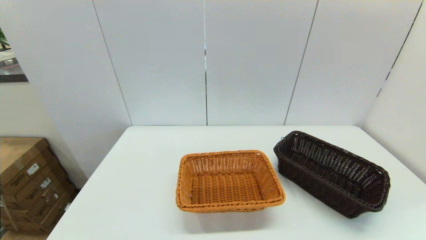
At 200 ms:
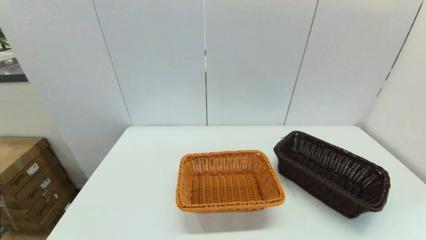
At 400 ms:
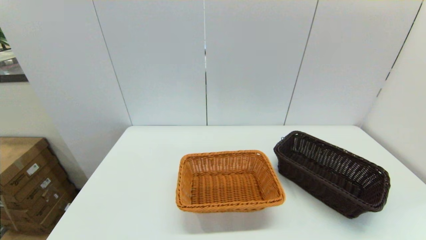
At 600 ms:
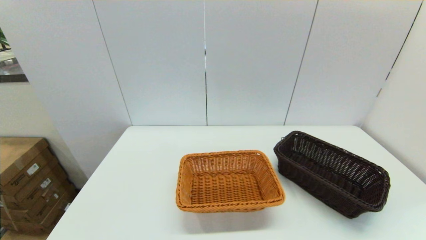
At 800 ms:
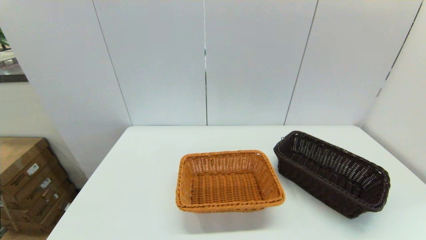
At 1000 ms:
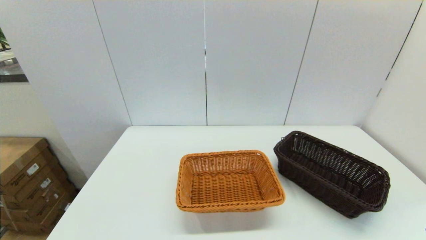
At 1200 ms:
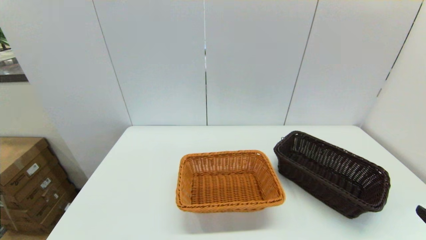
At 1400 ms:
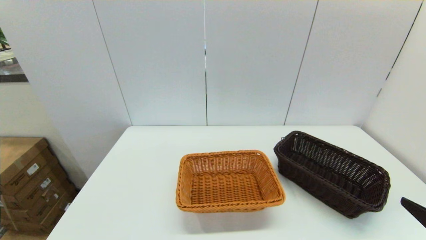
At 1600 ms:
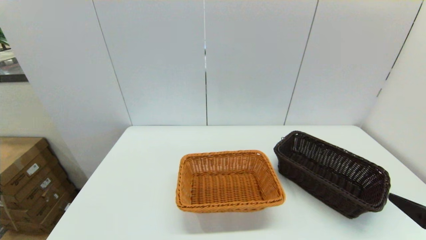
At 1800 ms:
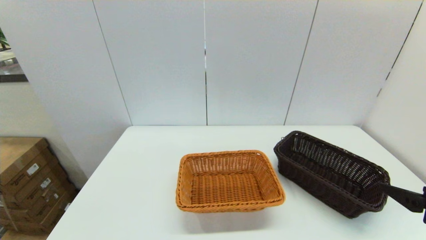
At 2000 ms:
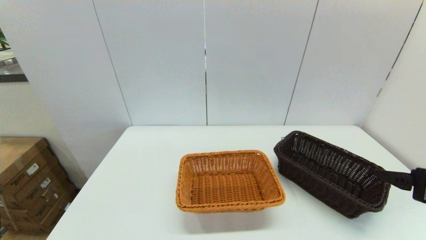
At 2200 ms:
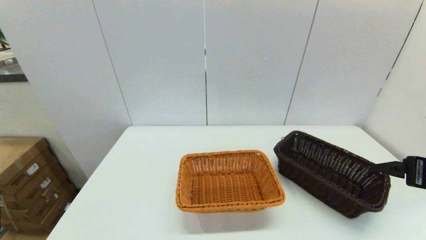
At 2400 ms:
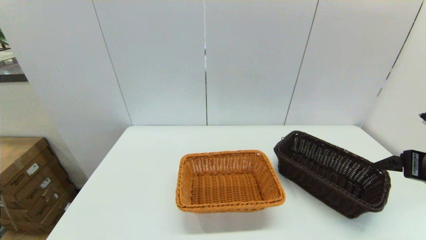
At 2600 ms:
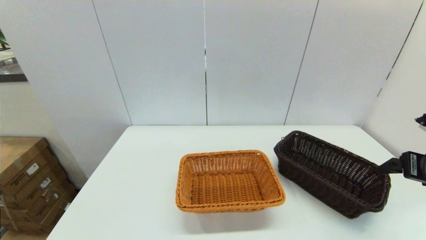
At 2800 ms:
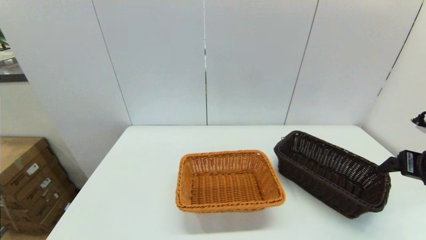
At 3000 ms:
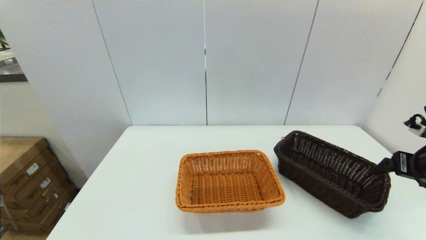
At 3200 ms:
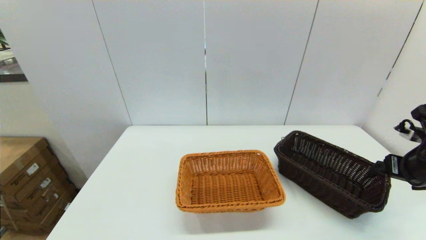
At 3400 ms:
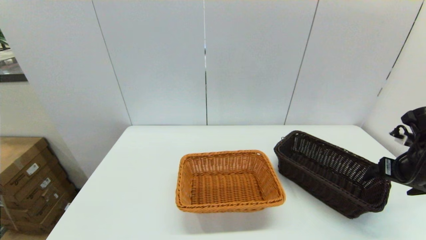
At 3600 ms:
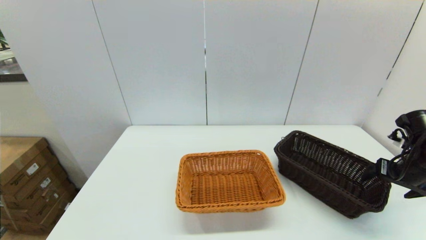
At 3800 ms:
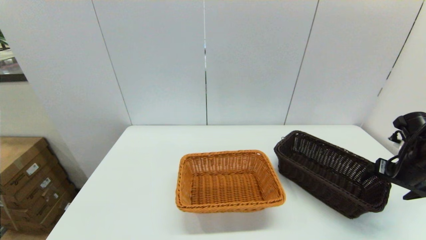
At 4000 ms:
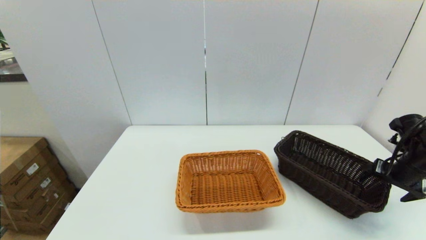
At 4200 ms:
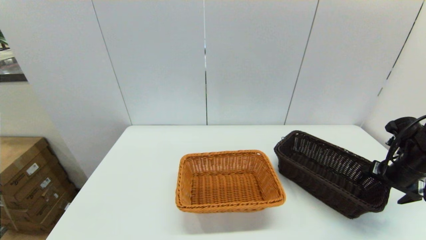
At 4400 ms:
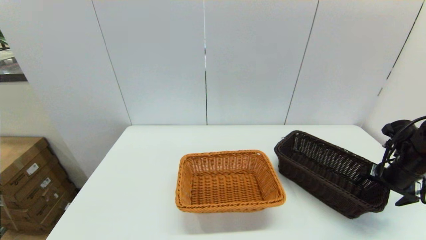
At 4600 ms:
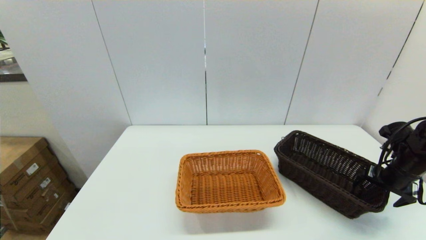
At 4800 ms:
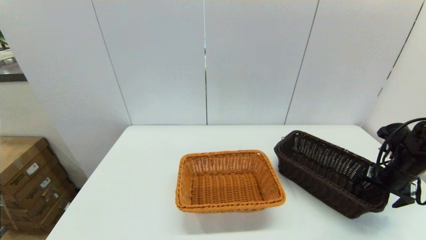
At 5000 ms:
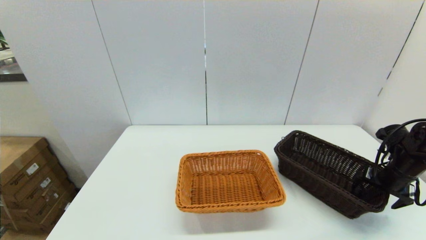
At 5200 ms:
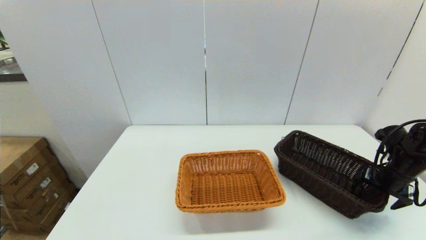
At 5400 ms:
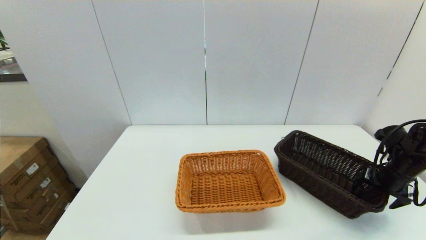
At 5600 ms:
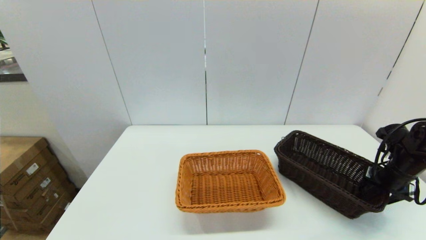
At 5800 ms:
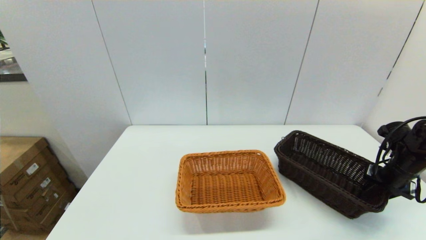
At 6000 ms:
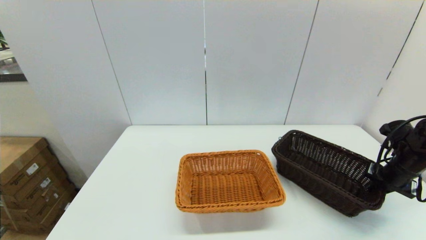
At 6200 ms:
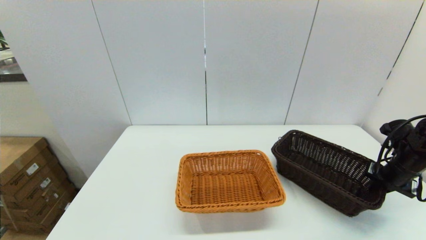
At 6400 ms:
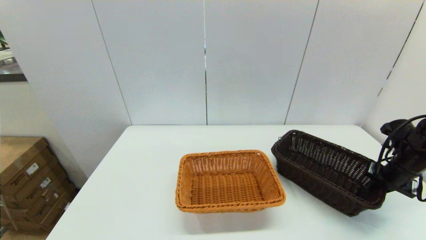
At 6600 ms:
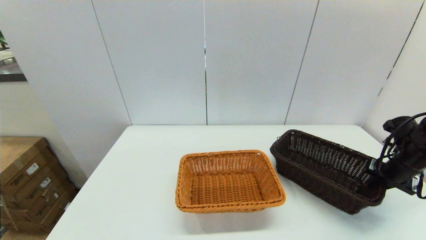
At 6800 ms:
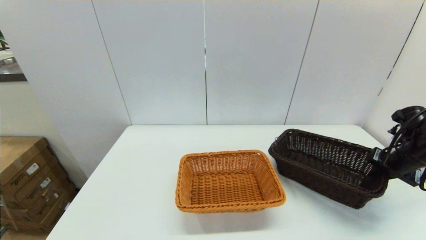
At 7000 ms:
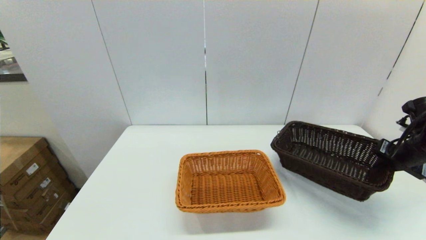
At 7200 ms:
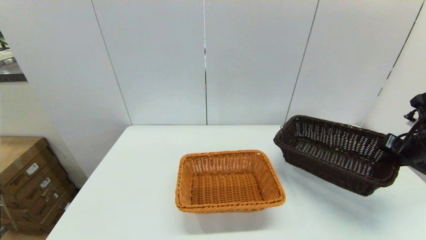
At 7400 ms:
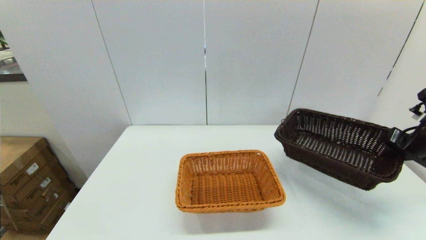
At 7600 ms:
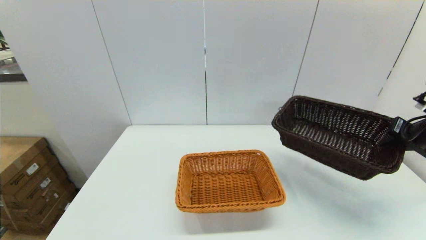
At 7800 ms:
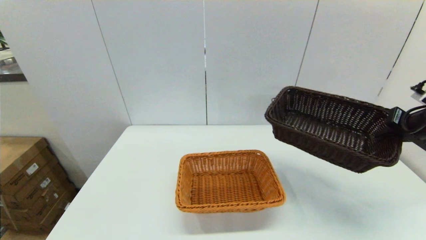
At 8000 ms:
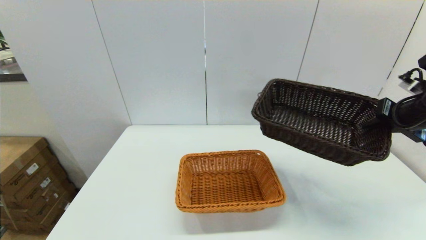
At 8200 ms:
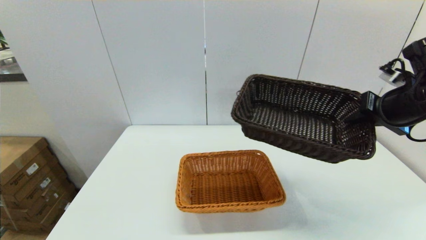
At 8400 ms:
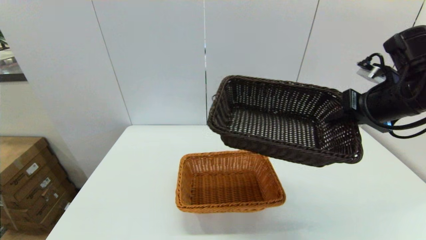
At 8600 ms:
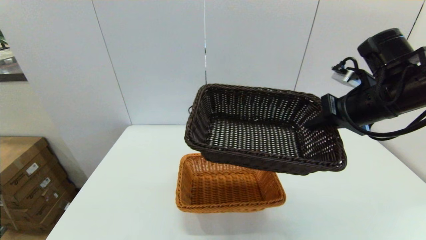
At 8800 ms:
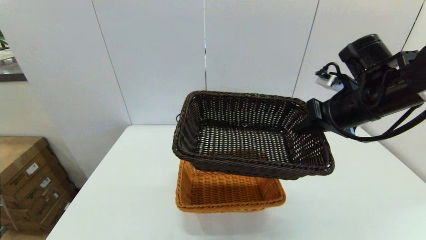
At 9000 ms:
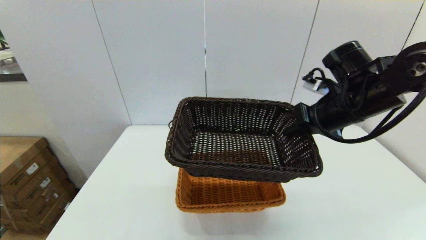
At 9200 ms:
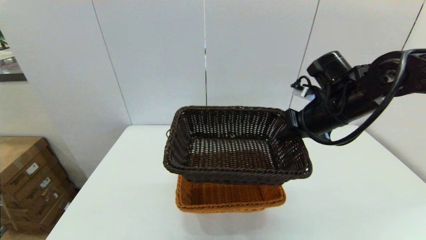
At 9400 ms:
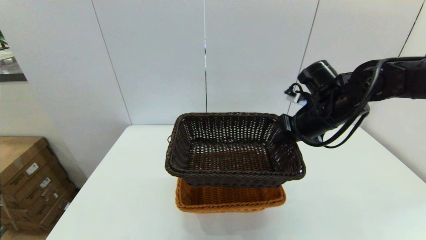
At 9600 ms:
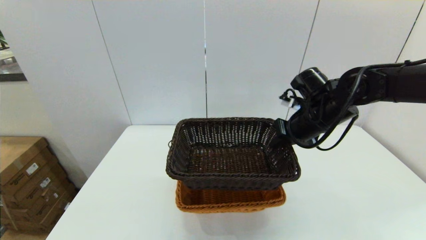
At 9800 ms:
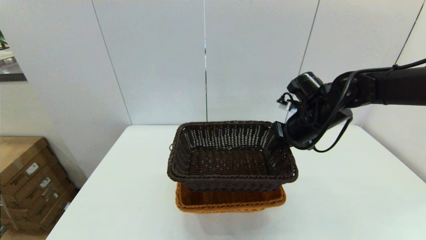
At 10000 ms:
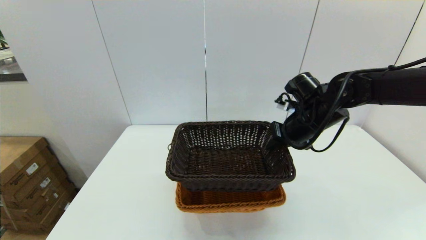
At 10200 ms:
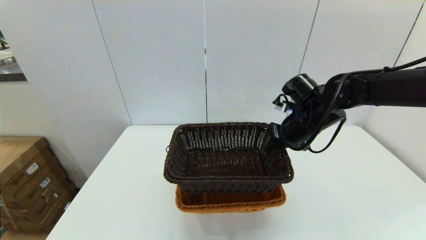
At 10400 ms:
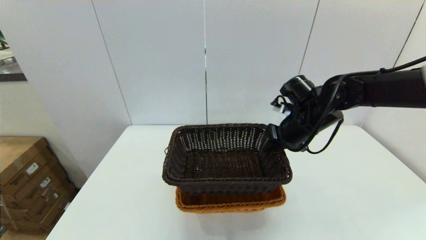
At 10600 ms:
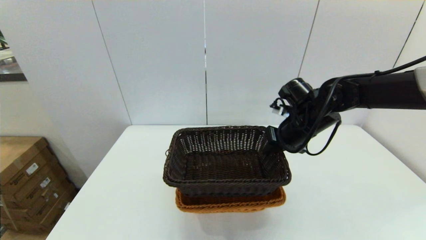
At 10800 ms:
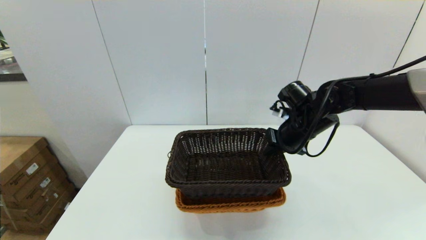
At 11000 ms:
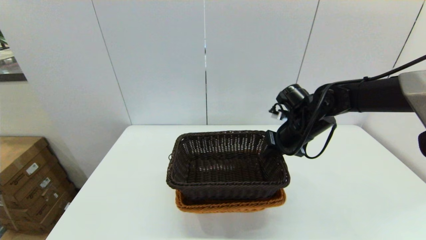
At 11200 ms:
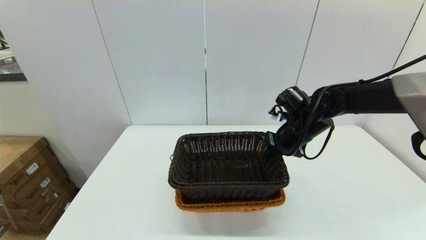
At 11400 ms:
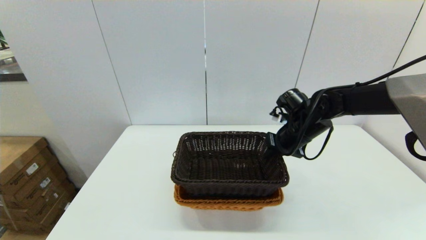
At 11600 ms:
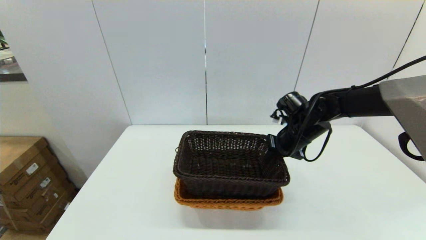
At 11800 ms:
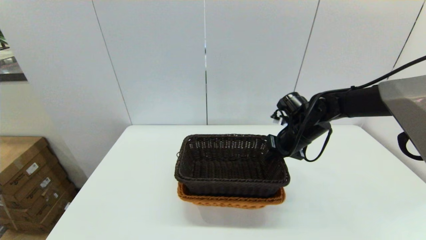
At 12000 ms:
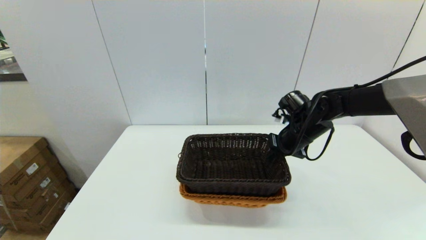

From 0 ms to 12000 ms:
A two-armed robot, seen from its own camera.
Task of the whole recording: stack a basket on top of another basket.
Step, from 0 ms to 6800 ms: Grasp the dark basket with the right gripper.
From 0 ms to 1600 ms: The right gripper travels forward and upward by approximately 15 cm.
From 1600 ms to 3000 ms: The right gripper goes some 15 cm forward and to the right.
From 3000 ms to 4400 ms: The right gripper heads downward and forward, covering roughly 10 cm.
From 4400 ms to 6000 ms: The right gripper closes.
From 6000 ms to 7600 ms: The right gripper moves upward, roughly 10 cm.
From 7600 ms to 9000 ms: The right gripper goes approximately 20 cm to the left.
From 9000 ms to 10400 ms: The right gripper shifts approximately 10 cm downward and forward.
From 10400 ms to 12000 ms: The right gripper shifts by roughly 5 cm.

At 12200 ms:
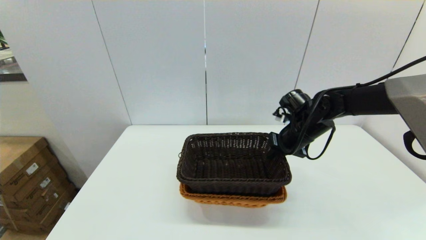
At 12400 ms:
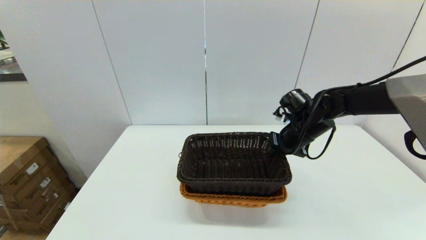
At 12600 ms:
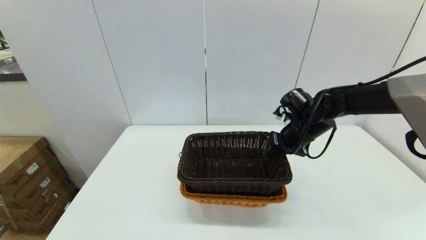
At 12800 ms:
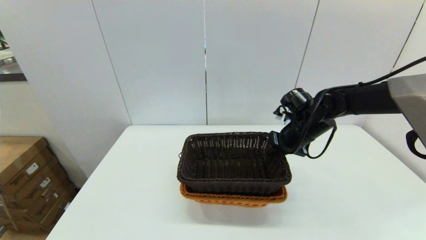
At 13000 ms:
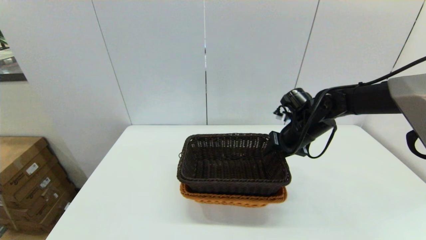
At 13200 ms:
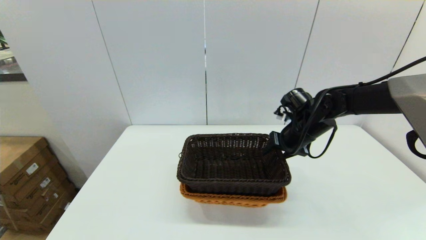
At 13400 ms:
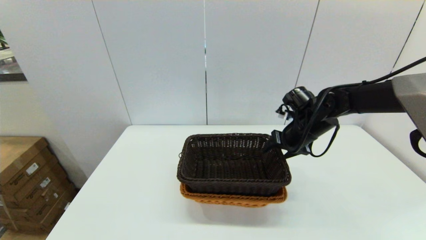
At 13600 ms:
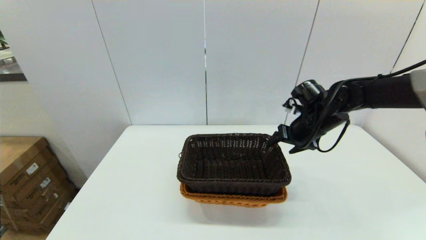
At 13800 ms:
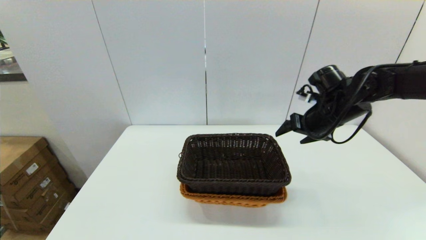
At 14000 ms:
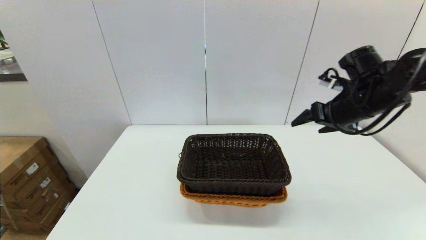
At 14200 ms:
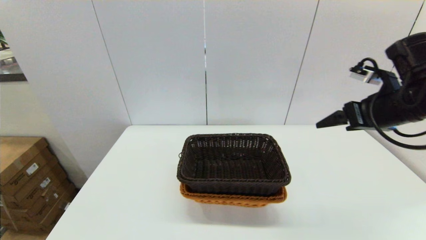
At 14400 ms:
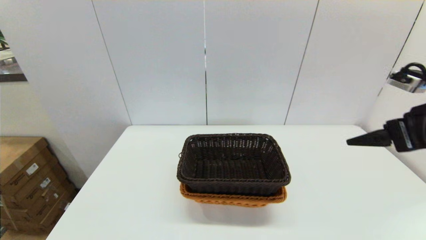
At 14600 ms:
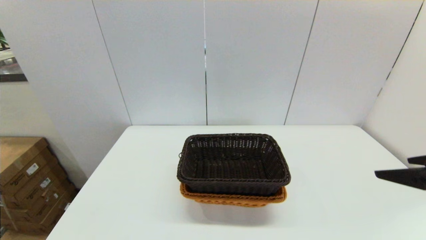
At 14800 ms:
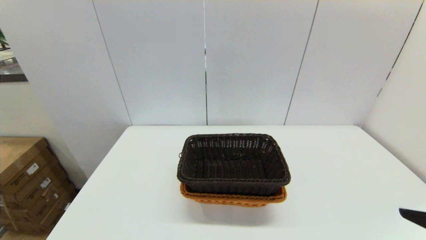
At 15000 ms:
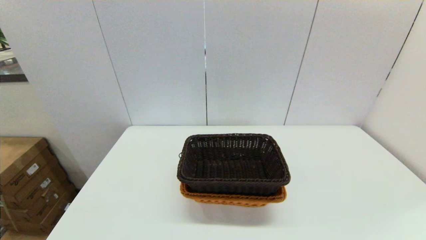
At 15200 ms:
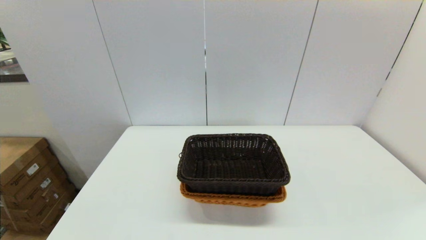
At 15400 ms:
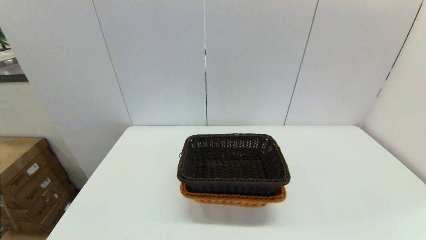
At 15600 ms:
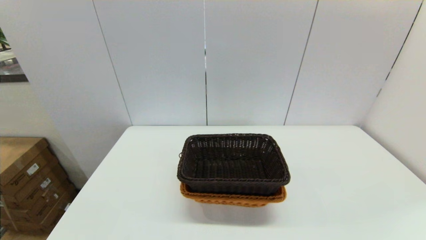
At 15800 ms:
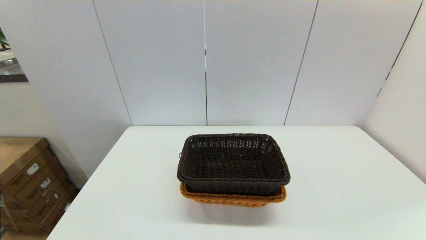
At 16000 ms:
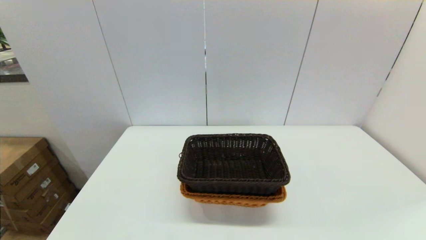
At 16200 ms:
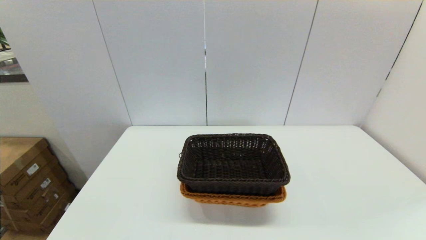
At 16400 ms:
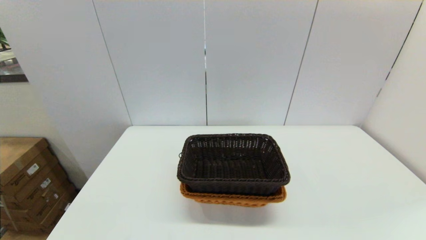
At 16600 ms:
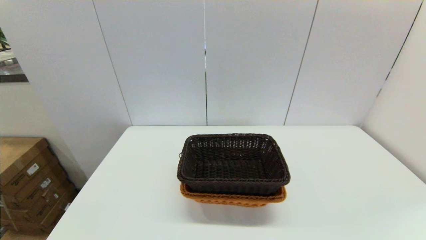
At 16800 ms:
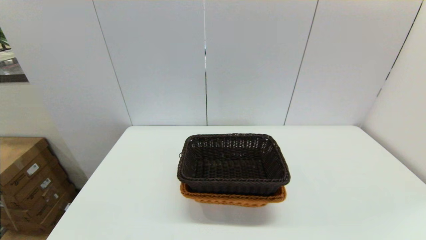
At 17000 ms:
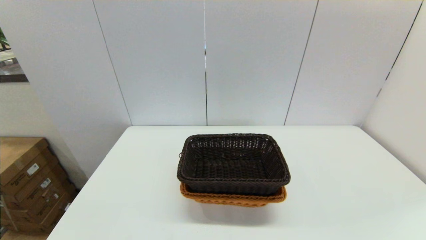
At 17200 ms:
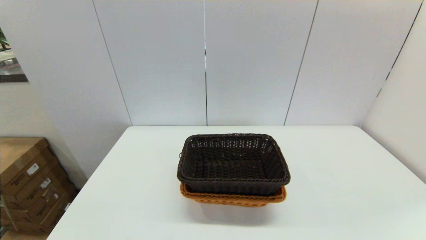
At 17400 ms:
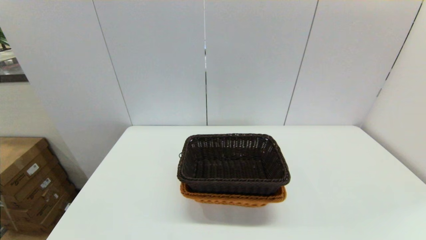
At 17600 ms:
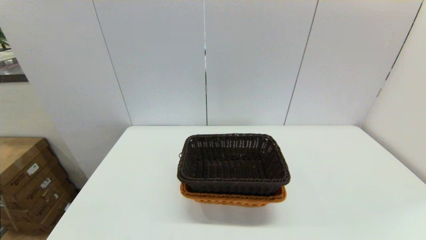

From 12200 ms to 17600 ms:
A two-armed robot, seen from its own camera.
Task of the whole recording: stack a basket on top of another basket.
From 12200 ms to 13600 ms: The right gripper opens its fingers.
From 13600 ms to 15000 ms: The right gripper moves backward, approximately 35 cm.
